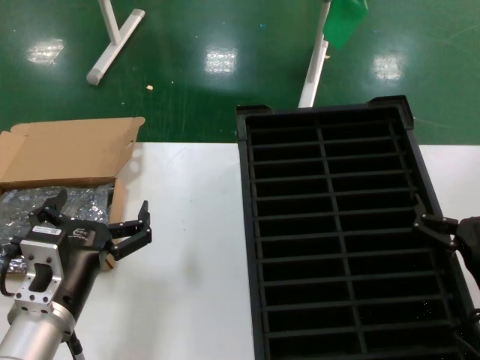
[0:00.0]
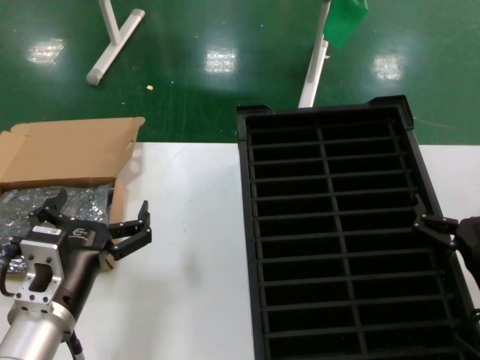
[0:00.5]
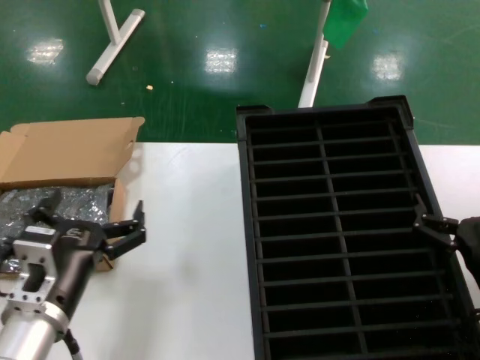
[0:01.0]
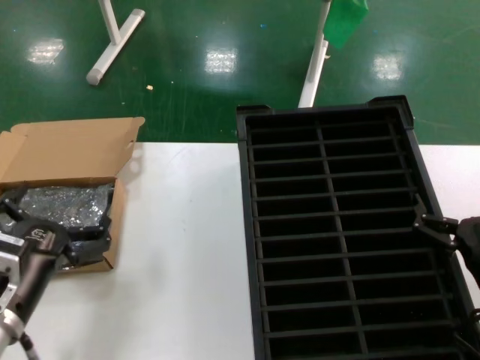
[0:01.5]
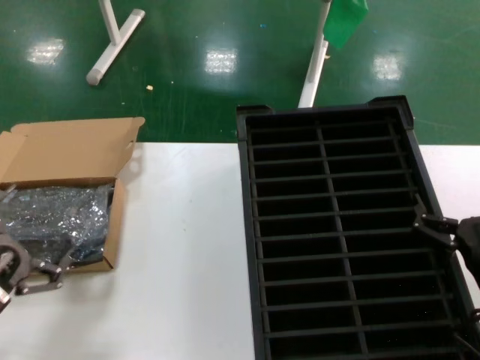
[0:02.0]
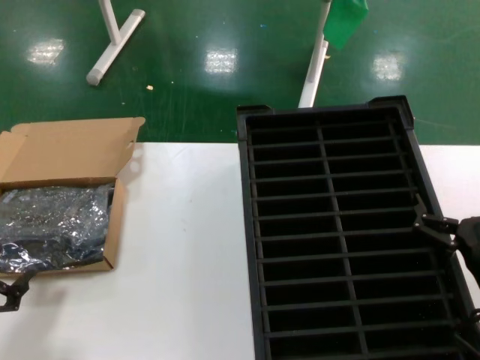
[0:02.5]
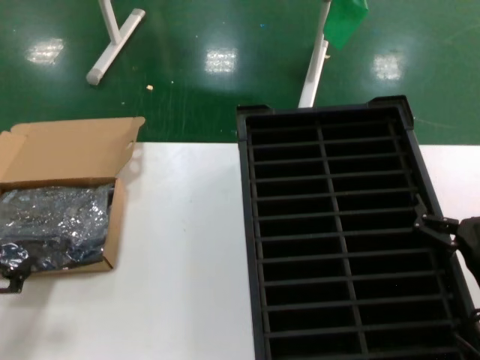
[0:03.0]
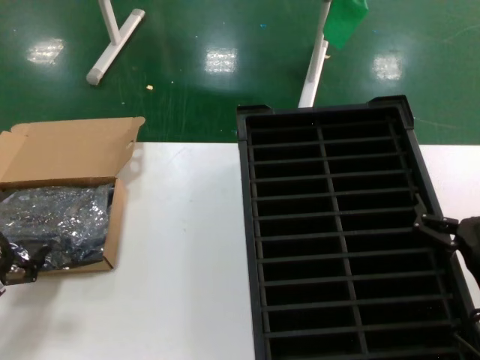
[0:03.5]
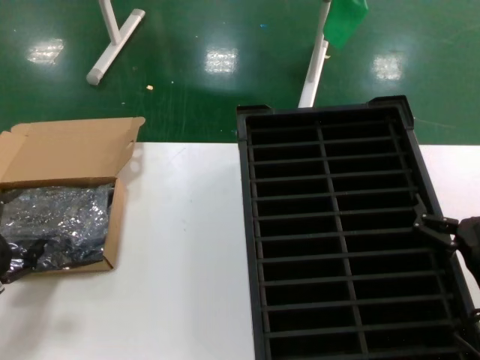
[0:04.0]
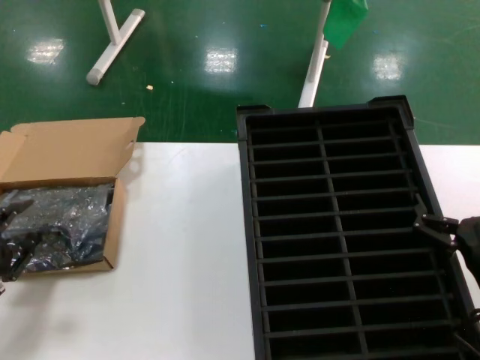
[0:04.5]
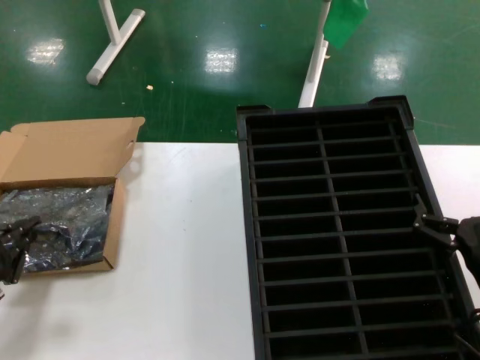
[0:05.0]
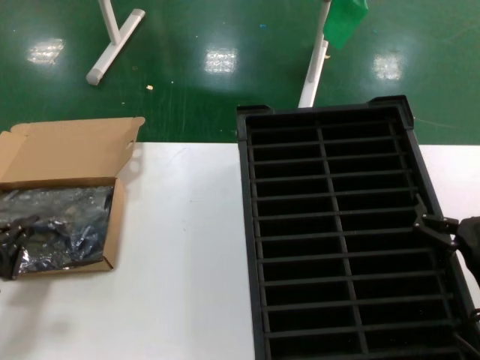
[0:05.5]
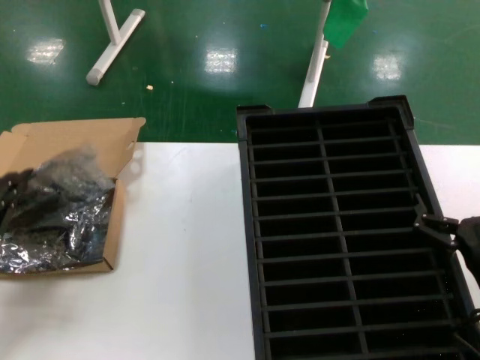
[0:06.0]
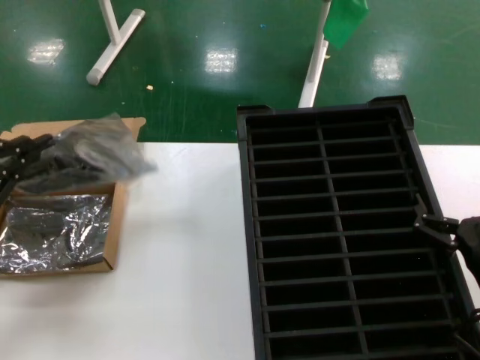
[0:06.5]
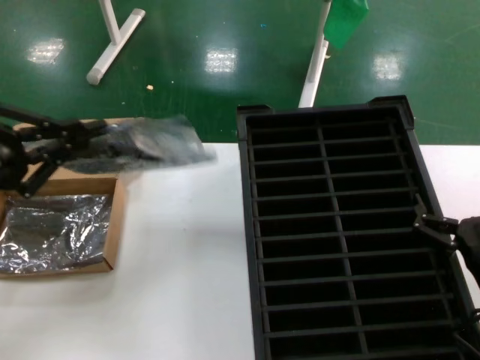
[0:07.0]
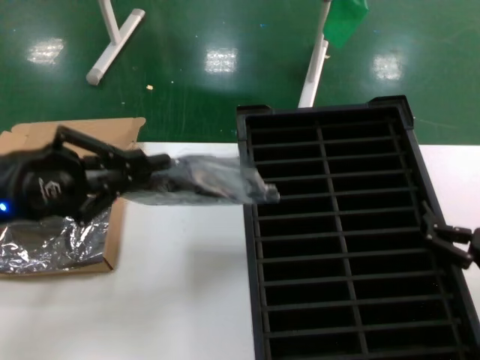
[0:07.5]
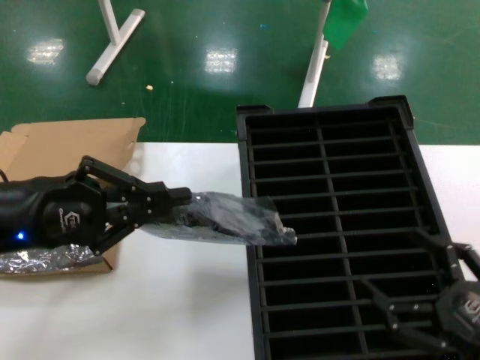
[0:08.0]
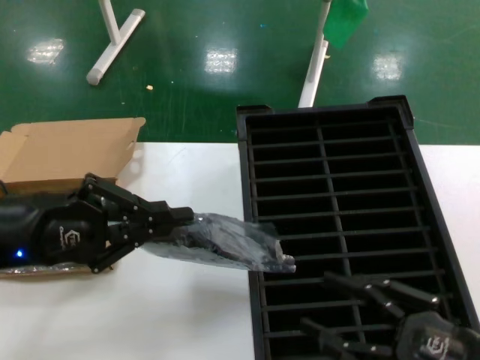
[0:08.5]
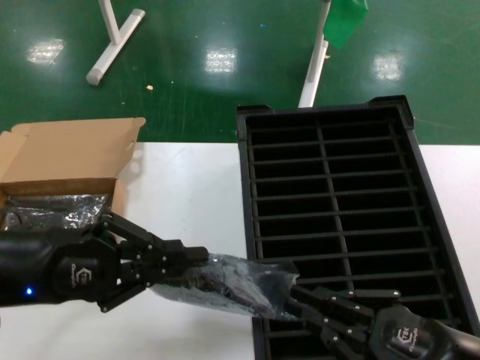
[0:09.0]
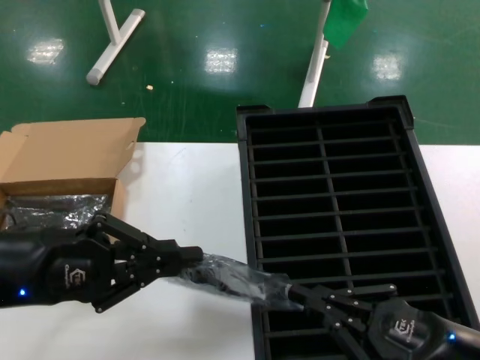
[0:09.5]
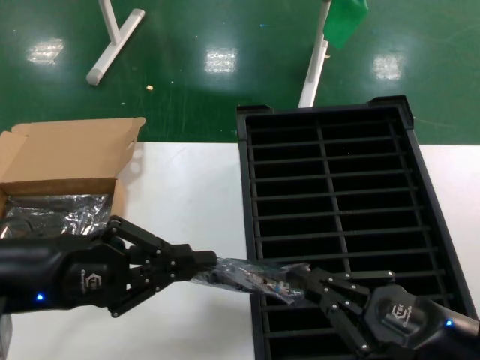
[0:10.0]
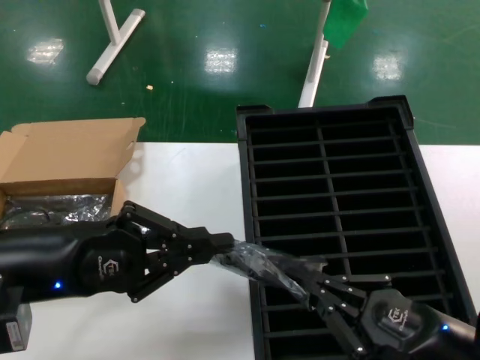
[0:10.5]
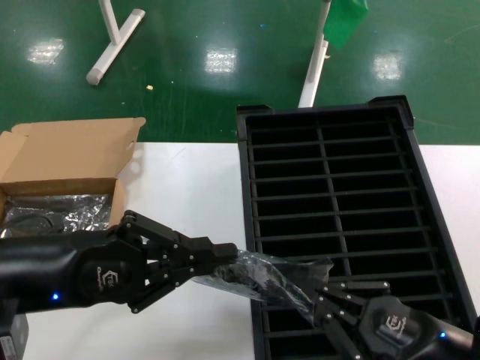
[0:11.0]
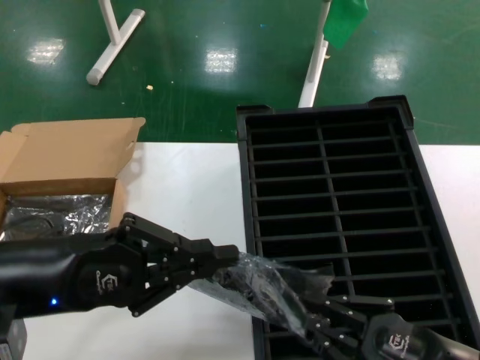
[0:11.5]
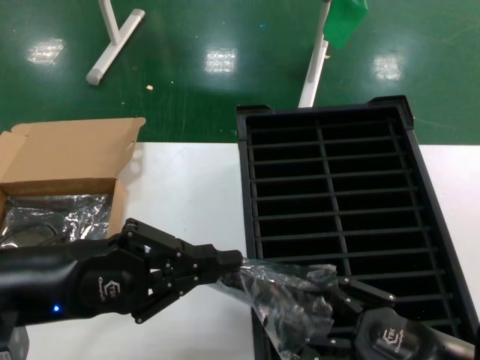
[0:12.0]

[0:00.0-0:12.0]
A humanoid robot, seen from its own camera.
Task of the whole recording: take out graphics card from box remove packaging put into black container.
Step, 0:00.0 to 0:05.0: Grasp the bag.
Step, 0:05.5 to 0:07.5: Lift the bag.
0:00.0 to 0:02.0: The left hand goes about 15 cm to the left.
0:02.0 to 0:04.0: The left hand travels to the left and forward by some 10 cm.
0:04.0 to 0:06.0: The left hand moves upward, about 5 cm.
0:06.0 to 0:08.0: The left hand heads upward and to the right, covering approximately 20 cm. The right hand moves backward and to the right, roughly 10 cm.
0:08.0 to 0:10.0: The left hand moves approximately 5 cm. The right hand changes place by roughly 5 cm.
0:10.0 to 0:12.0: There are only small adjustments of the hands.

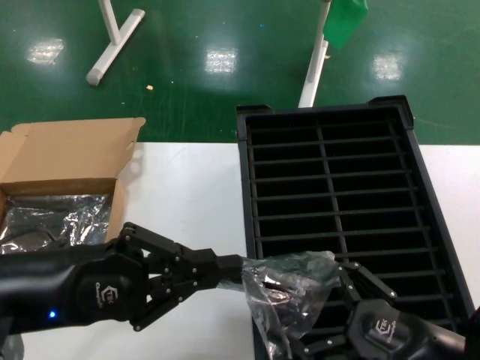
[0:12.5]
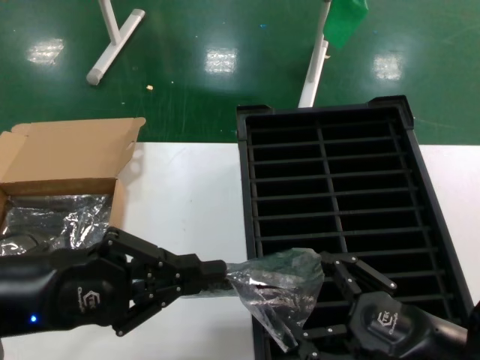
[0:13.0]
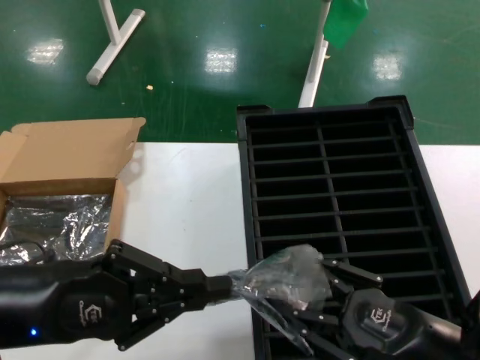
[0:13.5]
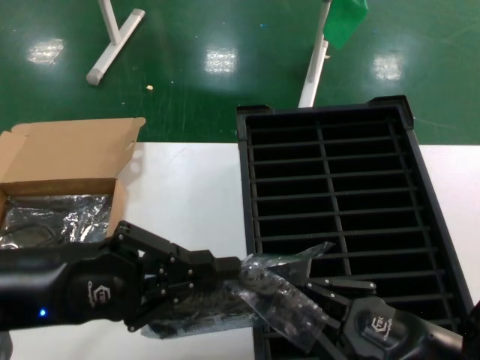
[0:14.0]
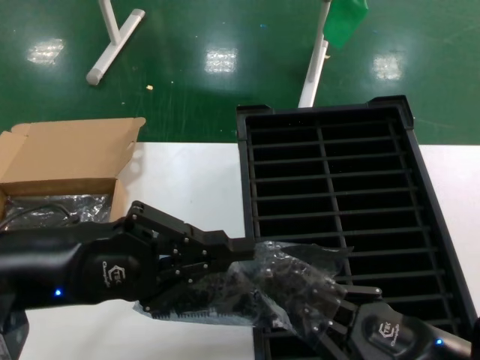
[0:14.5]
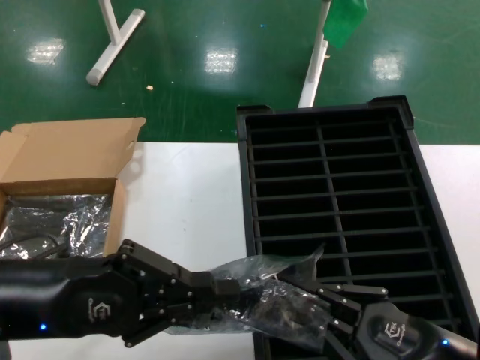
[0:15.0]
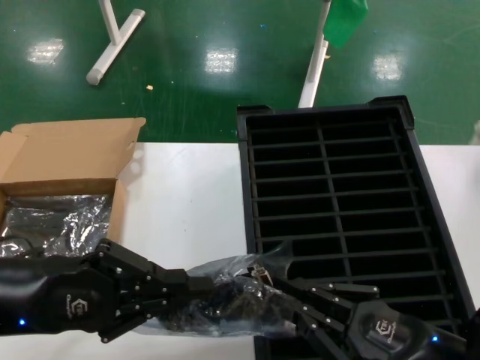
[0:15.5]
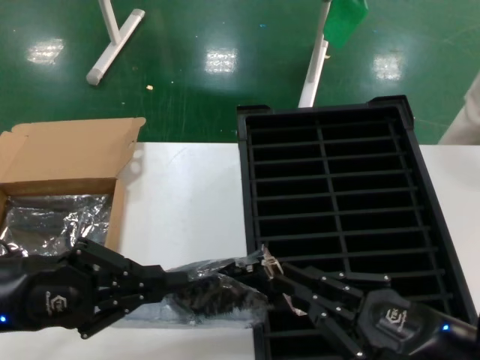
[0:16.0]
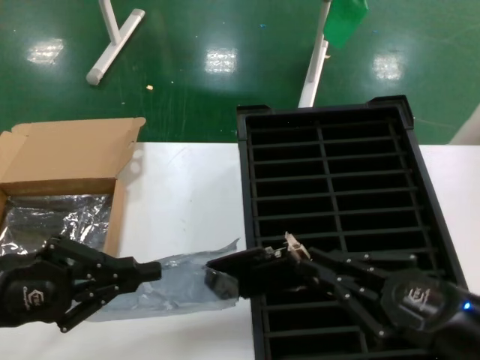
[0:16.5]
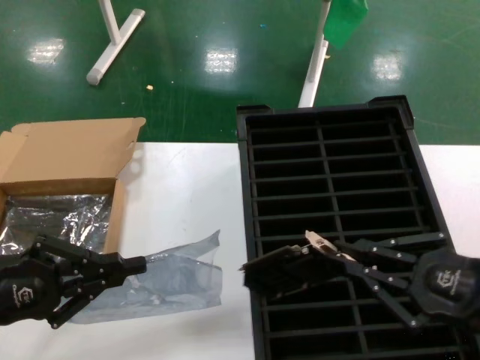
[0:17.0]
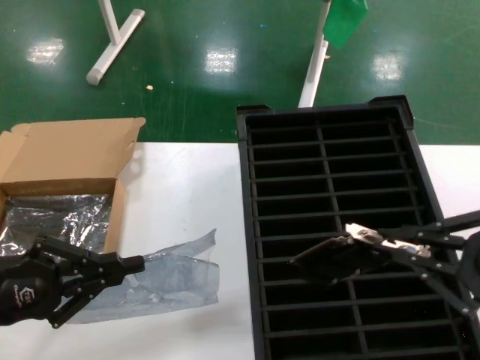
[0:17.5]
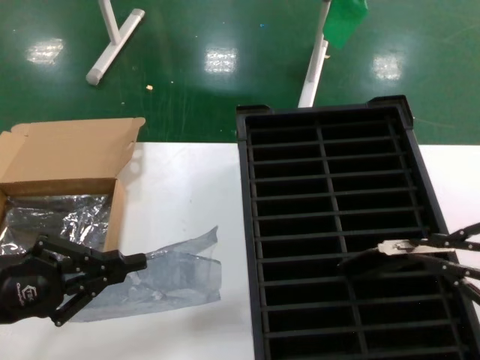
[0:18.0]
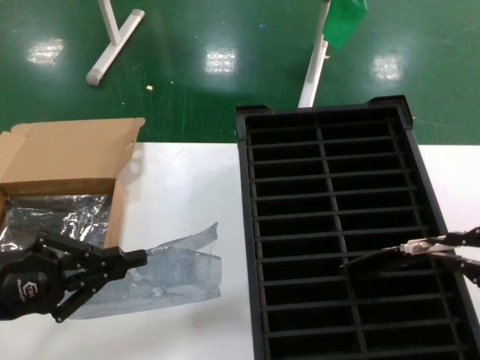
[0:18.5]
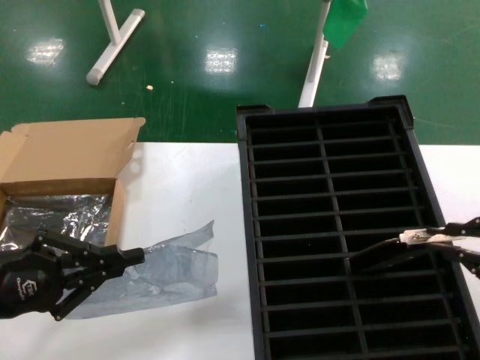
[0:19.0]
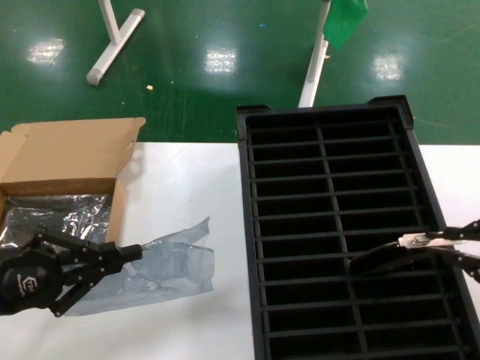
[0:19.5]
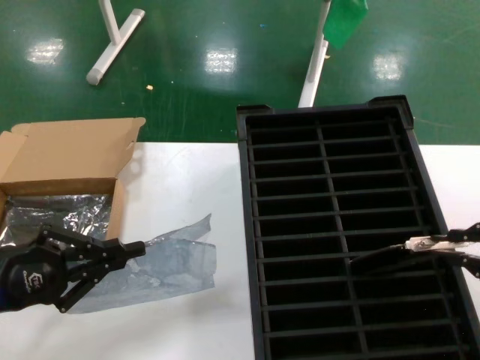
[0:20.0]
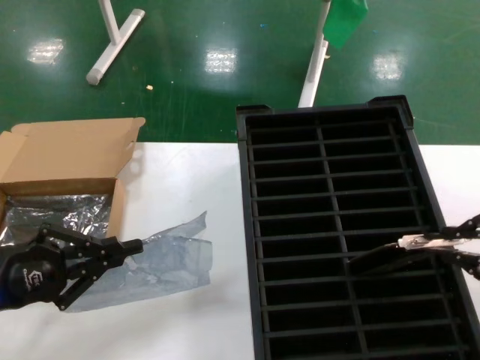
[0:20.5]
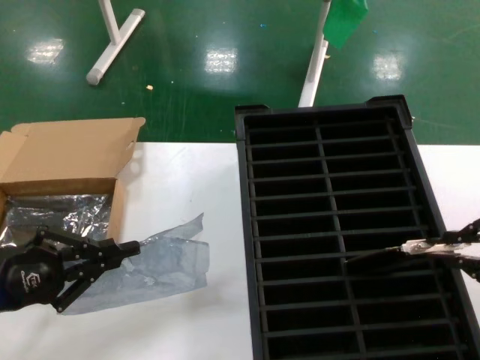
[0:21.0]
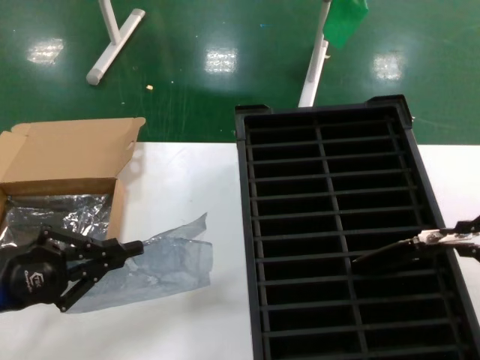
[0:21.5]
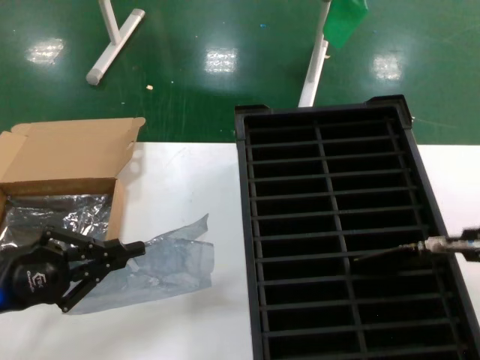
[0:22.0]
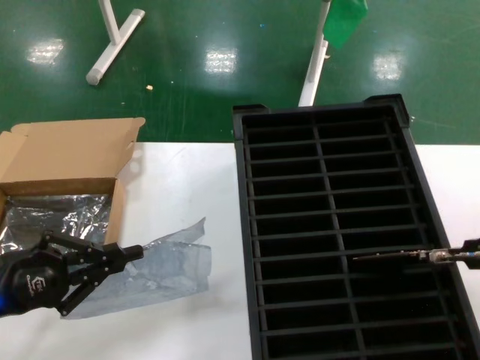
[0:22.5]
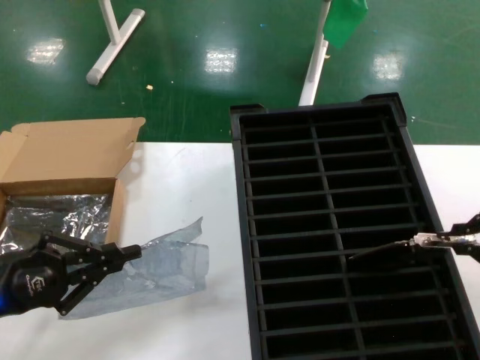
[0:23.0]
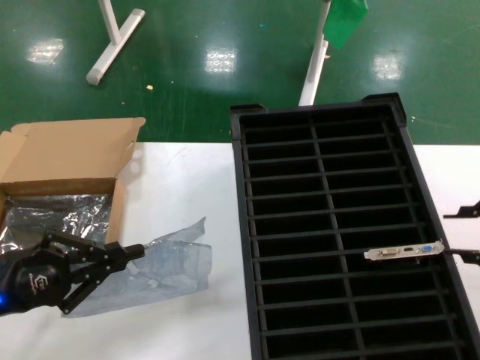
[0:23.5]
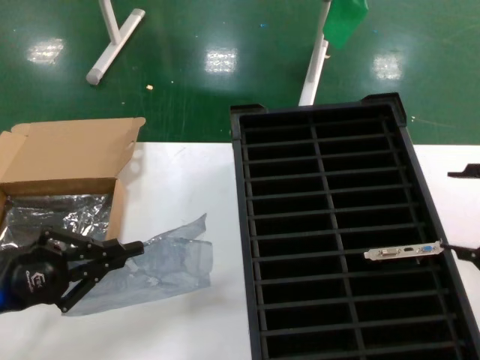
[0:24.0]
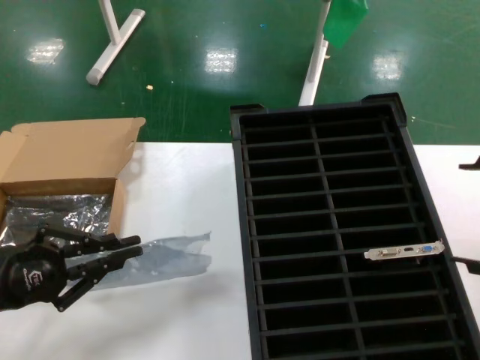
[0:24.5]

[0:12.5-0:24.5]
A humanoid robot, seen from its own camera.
Task of the whole recording: take out graphics card from box remove packaging put into black container.
Step, 0:12.5 to 0:16.5: Take out the hard disk of the bag.
Step, 0:17.0 to 0:23.0: Place the hard disk in the hard disk enclosure.
0:12.5 to 0:14.5: The hands stay close to where they were, moving slightly.
0:14.5 to 0:16.5: The right hand ends up roughly 5 cm from where it was. Meanwhile the left hand travels to the left and downward by some 10 cm.
0:16.5 to 0:18.5: The right hand shifts roughly 15 cm upward and to the right.
0:18.5 to 0:22.5: The hands stay close to where they were, moving slightly.
0:22.5 to 0:24.5: The hands make only small movements.

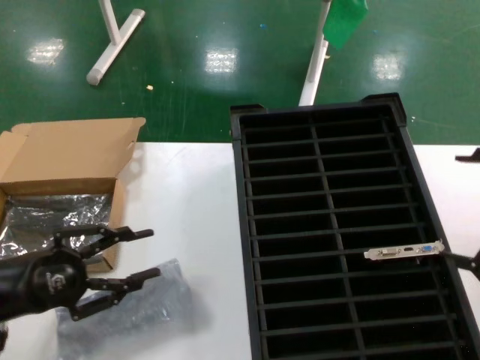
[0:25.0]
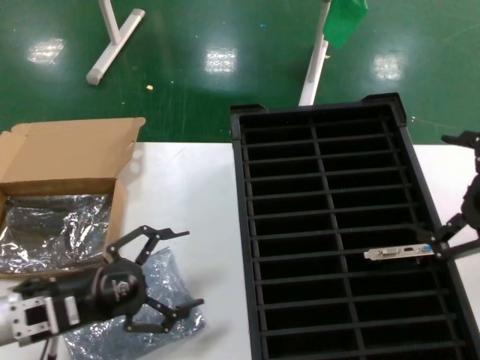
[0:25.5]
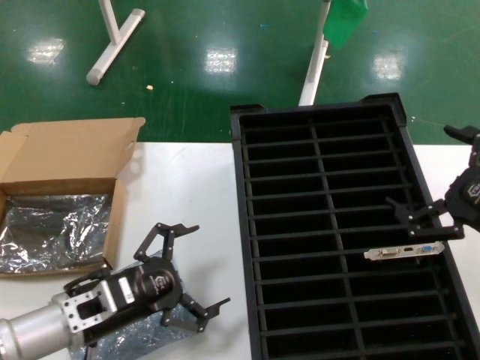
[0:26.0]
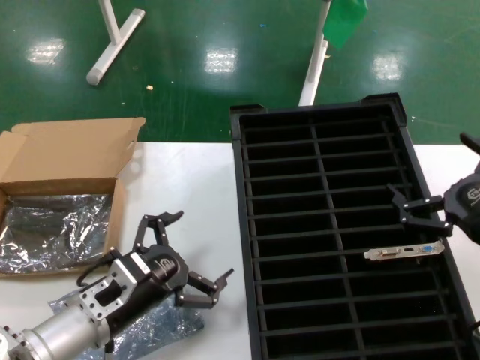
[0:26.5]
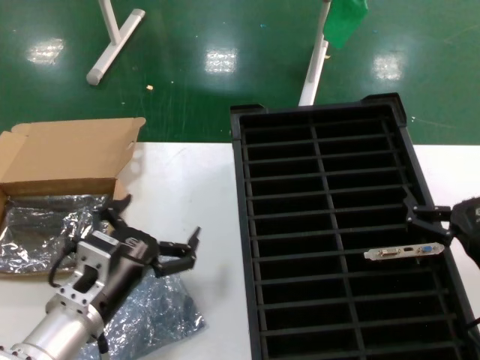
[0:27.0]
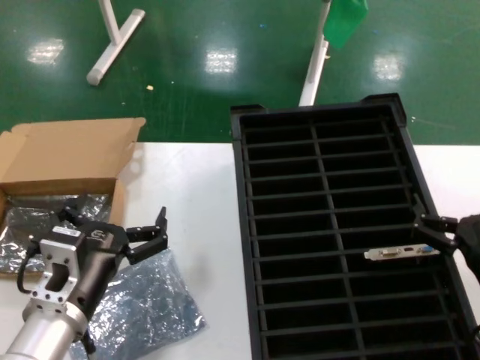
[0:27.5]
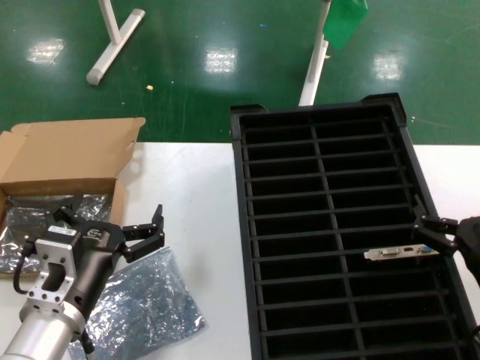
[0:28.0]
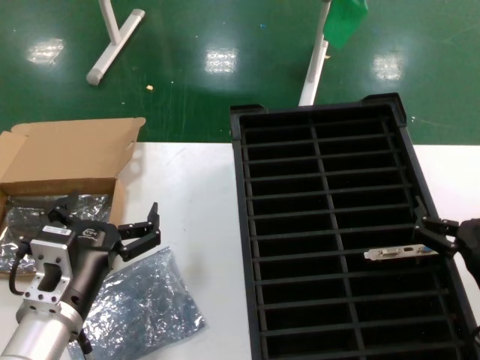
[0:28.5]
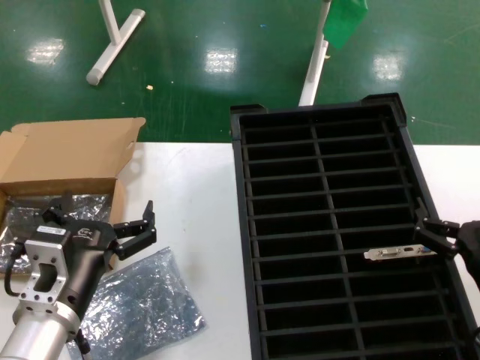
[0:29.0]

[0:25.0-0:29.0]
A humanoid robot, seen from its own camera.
Task of the whole recording: take out graphics card from box remove packaging put into black container.
0:25.0 to 0:27.0: The right hand moves downward and to the left, about 20 cm; the left hand heads to the right, covering approximately 20 cm.
0:27.0 to 0:29.0: The hands make only small movements.
